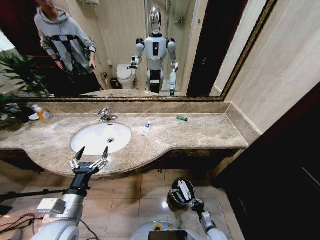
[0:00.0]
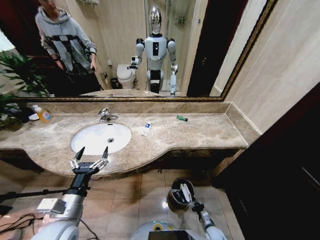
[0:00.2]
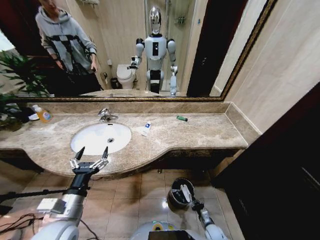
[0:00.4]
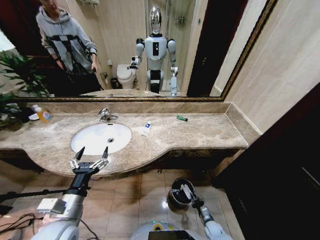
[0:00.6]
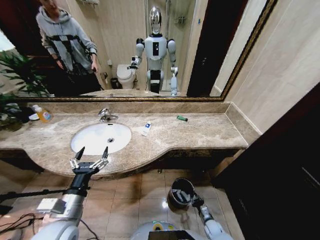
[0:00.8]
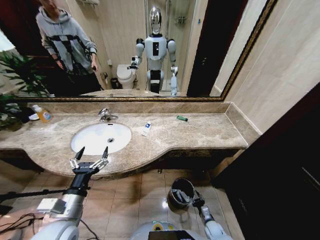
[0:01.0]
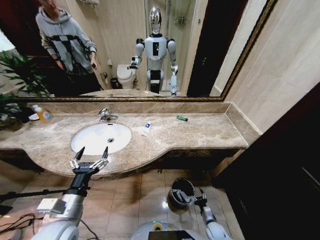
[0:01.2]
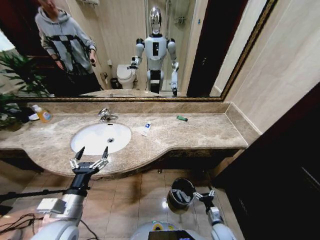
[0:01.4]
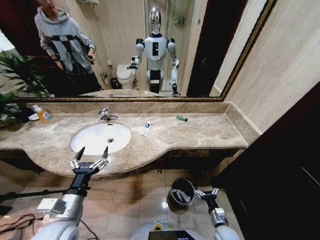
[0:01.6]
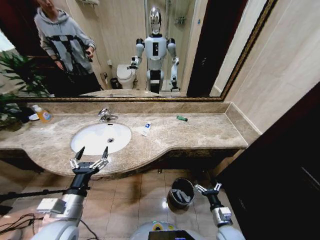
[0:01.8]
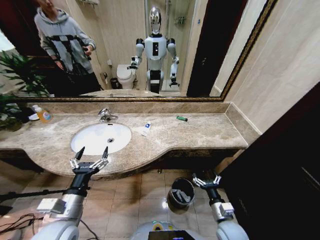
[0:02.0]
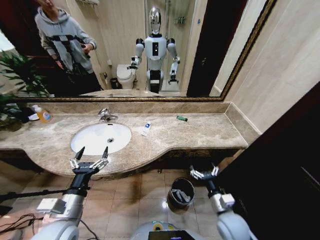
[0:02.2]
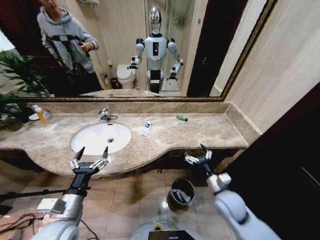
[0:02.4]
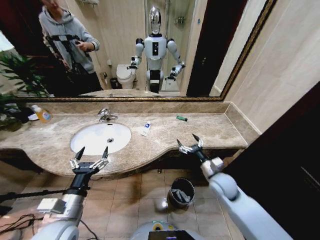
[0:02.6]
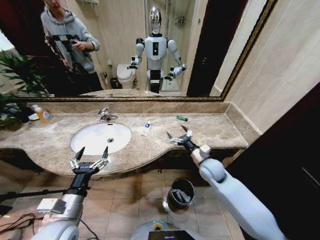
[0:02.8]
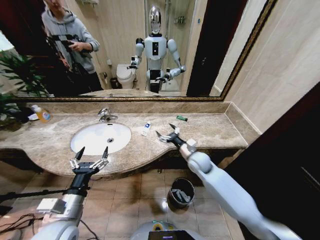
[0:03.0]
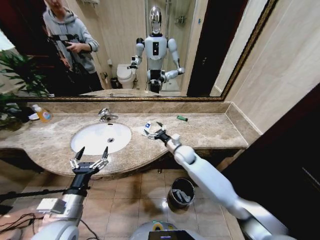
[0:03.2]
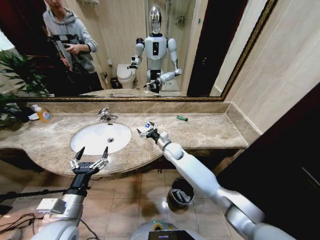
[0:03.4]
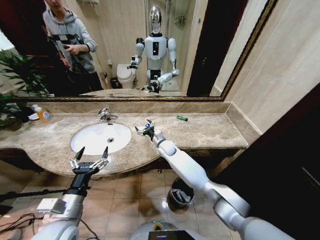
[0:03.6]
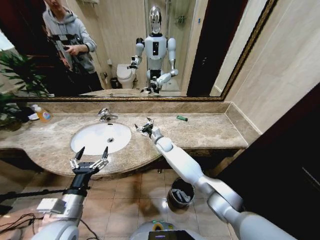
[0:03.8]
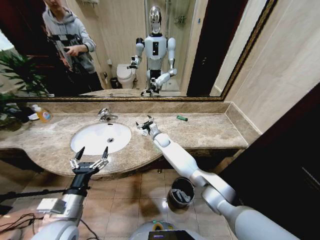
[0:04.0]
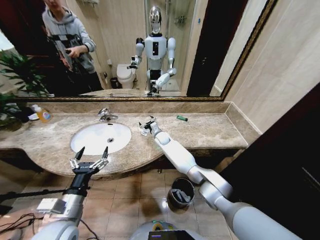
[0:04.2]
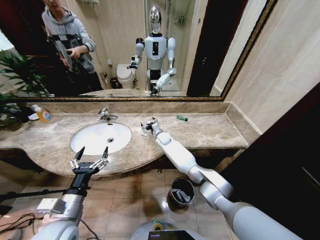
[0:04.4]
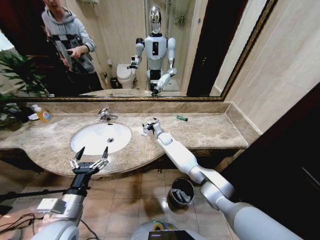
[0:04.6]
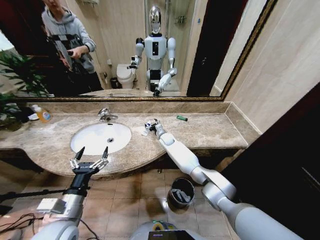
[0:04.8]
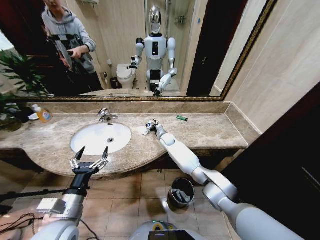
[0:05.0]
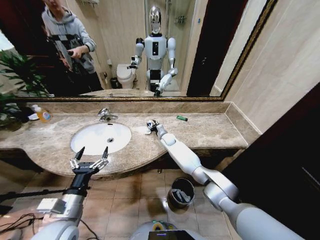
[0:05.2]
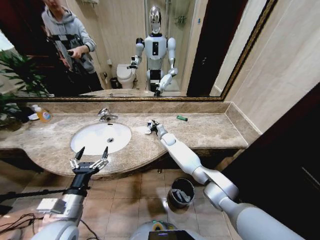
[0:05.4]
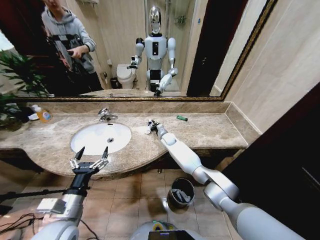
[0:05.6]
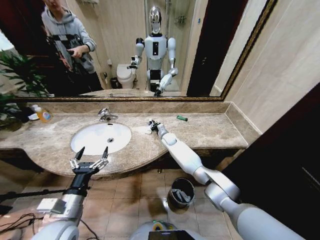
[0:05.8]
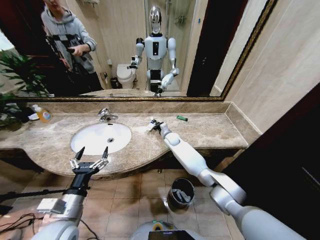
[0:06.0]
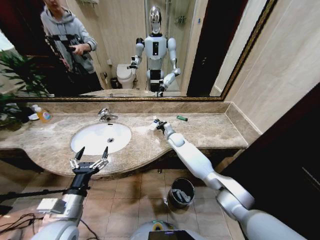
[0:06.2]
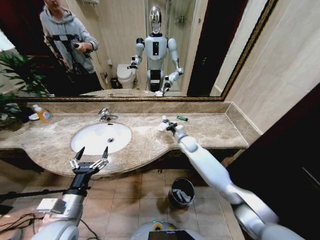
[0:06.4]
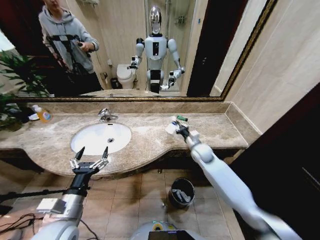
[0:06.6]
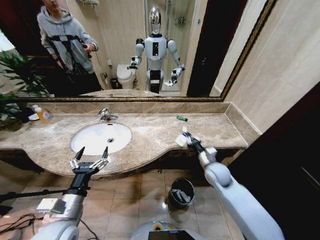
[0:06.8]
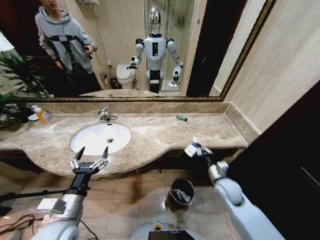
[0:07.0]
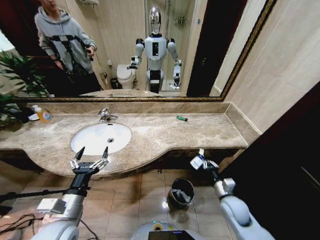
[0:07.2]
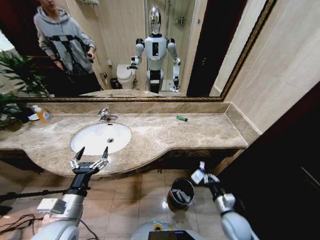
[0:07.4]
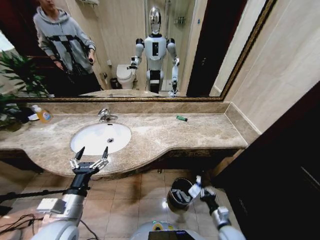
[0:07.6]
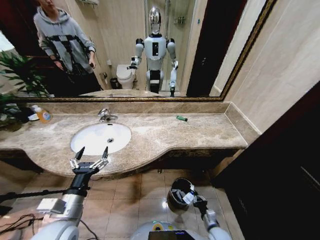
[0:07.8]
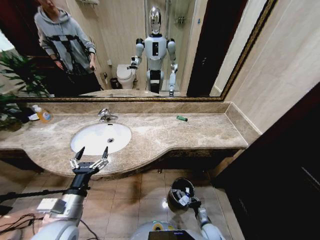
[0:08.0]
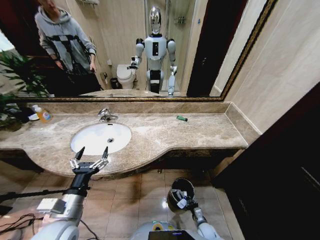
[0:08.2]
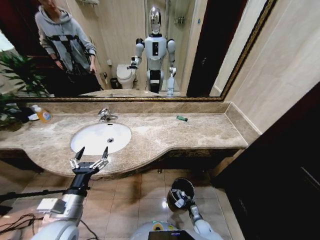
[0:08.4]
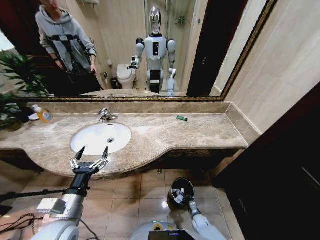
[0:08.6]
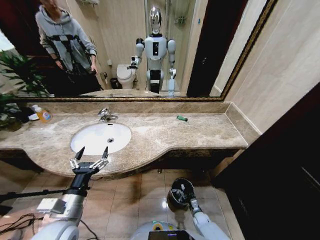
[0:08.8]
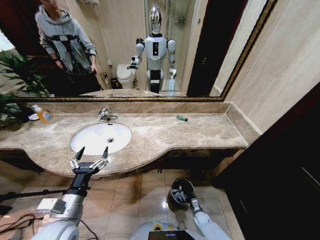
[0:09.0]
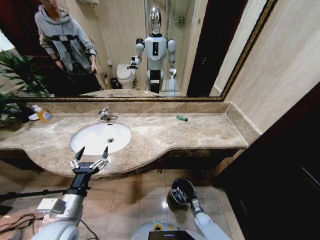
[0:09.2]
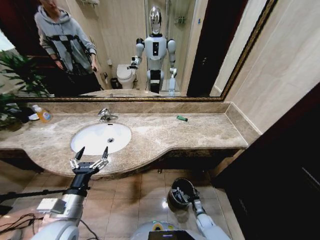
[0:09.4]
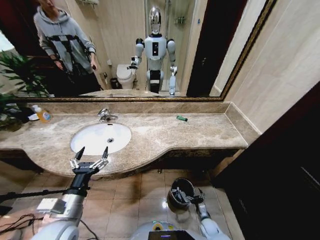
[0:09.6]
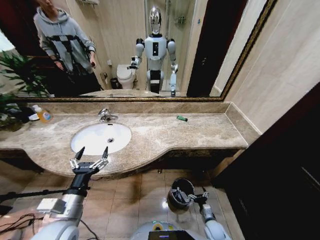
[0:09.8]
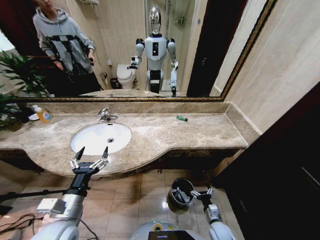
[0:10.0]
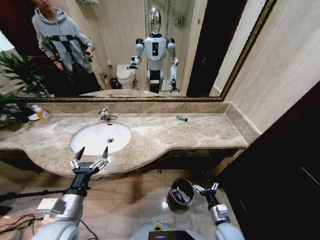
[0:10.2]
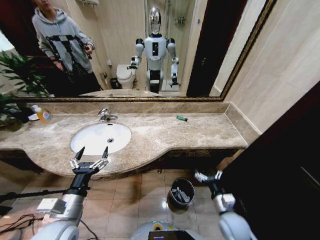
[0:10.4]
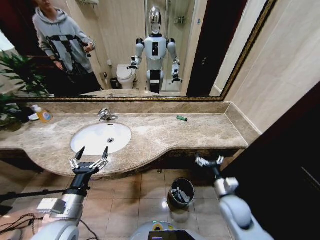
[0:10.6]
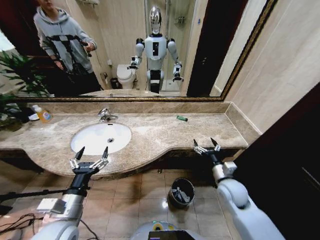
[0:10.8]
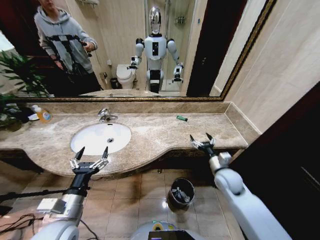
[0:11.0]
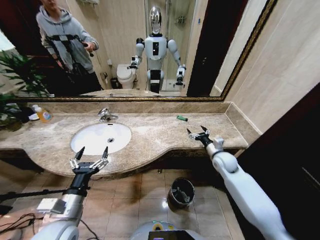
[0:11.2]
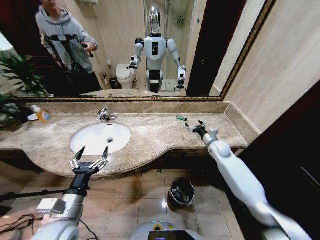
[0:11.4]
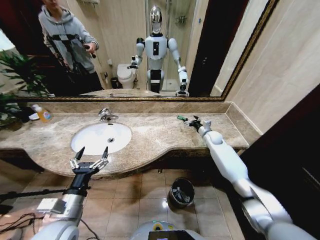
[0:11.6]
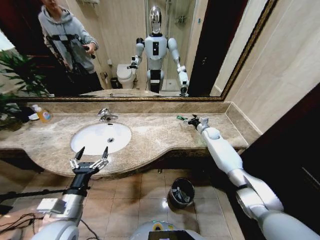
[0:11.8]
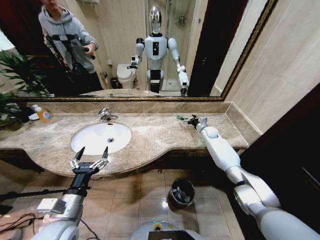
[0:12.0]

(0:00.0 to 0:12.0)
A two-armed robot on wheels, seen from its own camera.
Task of the whole recording: Pick up the trash from the sink and place it in the trash bin.
0:00.0 - 0:01.6: The right gripper heads upward, covering some 10 cm, and opens up.
0:01.6 - 0:03.0: The right gripper heads forward, upward and to the left, covering roughly 35 cm.
0:03.0 - 0:04.4: The right gripper travels forward and to the left by about 25 cm.
0:04.4 - 0:06.0: The right gripper moves to the right, about 5 cm, and closes.
0:06.0 - 0:07.6: The right gripper goes roughly 50 cm backward and to the right.
0:07.6 - 0:09.0: The right gripper moves downward and forward, roughly 20 cm, and opens up.
0:09.0 - 0:10.4: The right gripper travels upward by approximately 30 cm, and opens.
0:10.4 - 0:12.0: The right gripper moves forward, approximately 40 cm.

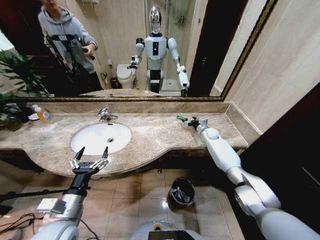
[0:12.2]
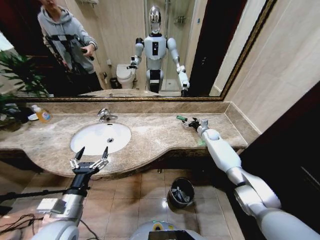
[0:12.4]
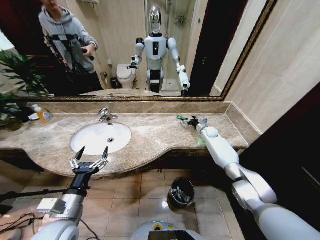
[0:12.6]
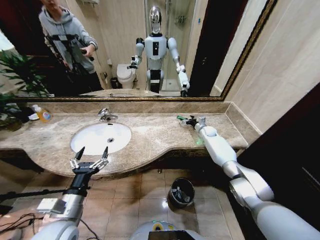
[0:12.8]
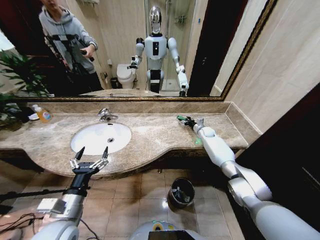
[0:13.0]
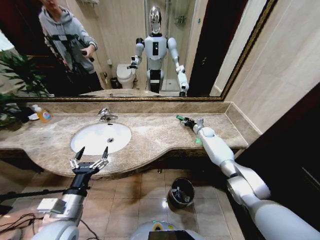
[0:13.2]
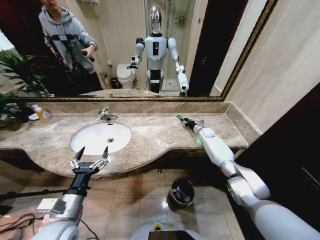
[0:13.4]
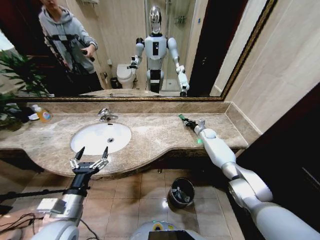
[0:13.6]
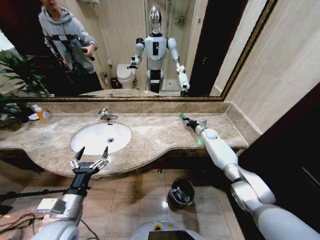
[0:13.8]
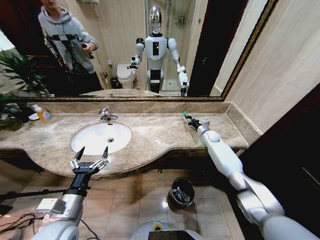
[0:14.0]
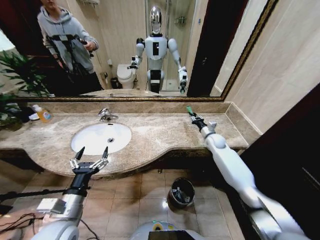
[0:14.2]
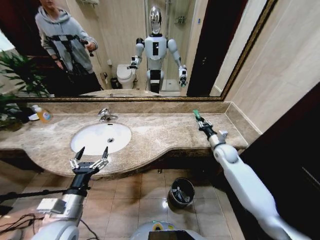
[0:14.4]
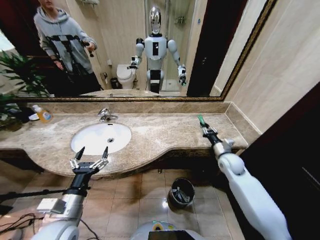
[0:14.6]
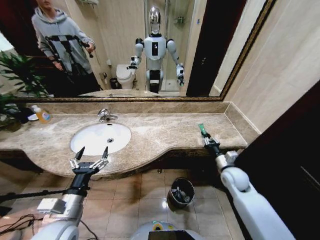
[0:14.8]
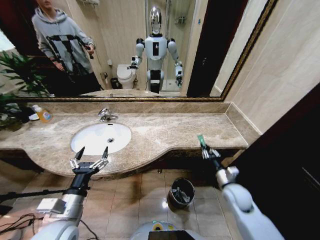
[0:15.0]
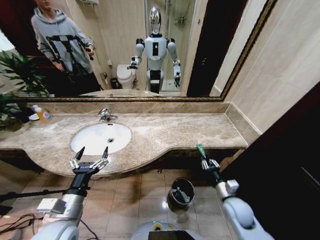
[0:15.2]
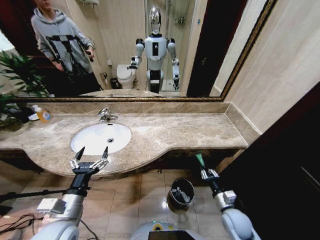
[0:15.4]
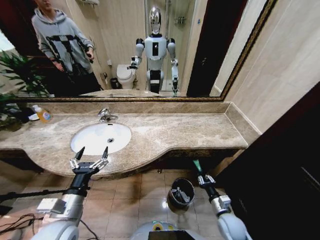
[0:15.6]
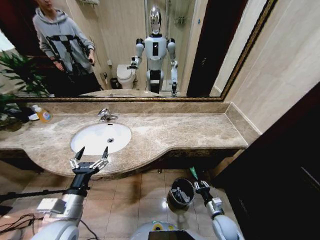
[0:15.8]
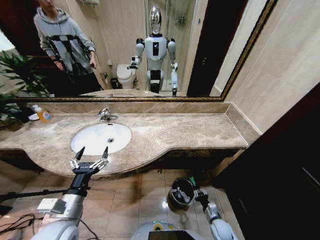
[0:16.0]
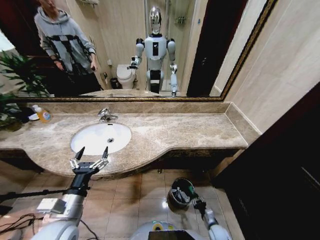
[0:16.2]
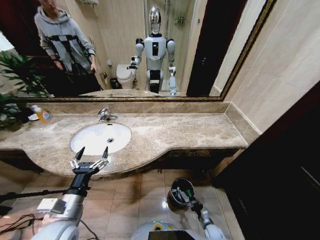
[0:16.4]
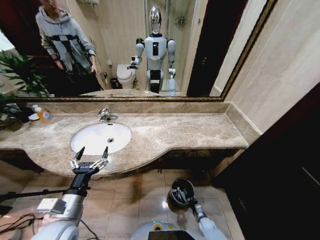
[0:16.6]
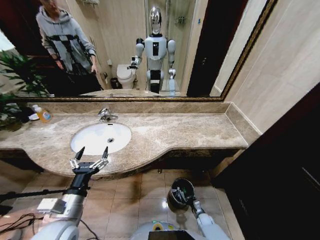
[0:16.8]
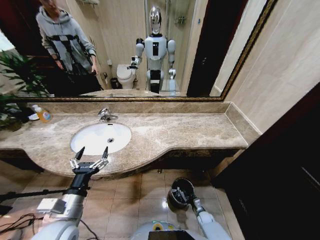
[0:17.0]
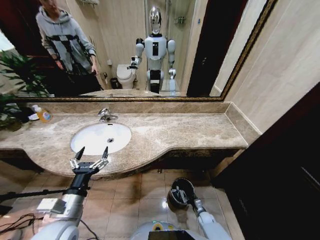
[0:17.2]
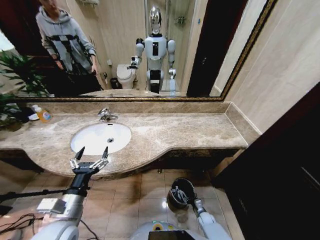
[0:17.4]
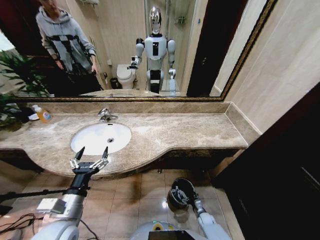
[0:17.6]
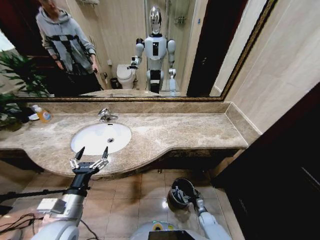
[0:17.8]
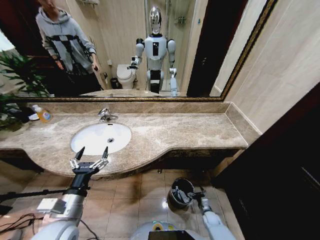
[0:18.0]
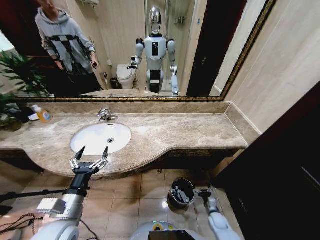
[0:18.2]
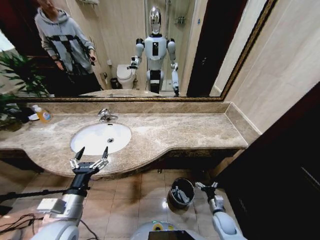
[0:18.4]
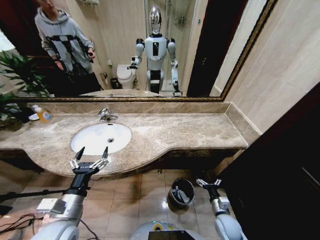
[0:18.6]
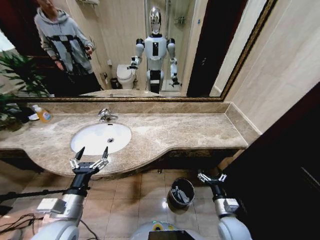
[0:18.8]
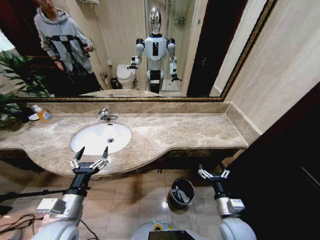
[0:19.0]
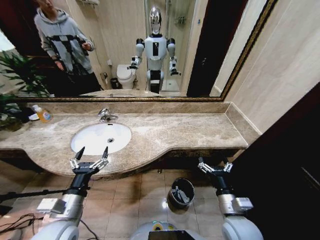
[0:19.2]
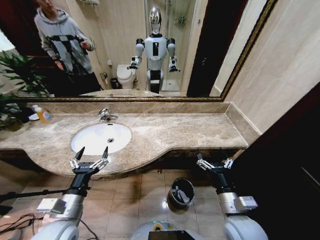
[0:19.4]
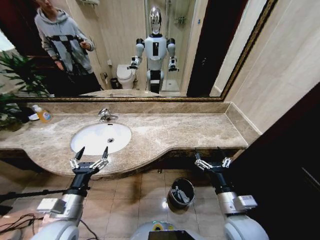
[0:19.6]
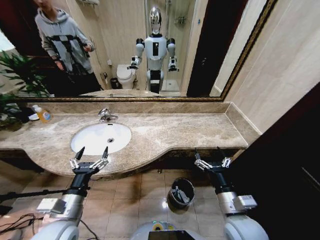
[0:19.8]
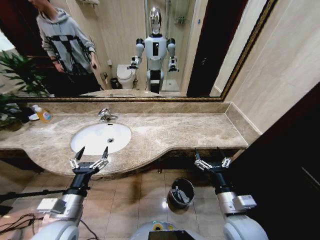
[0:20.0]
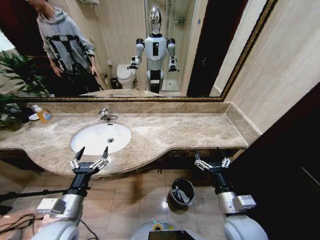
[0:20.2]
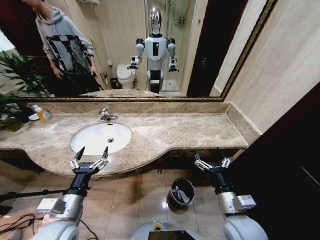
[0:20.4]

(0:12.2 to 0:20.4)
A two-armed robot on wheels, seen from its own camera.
Task of the whole recording: Pick up the trash from the sink and place it in the trash bin.
0:12.2 - 0:13.8: The right gripper closes up.
0:13.8 - 0:15.4: The right gripper shifts roughly 40 cm backward.
0:15.4 - 0:17.2: The right gripper heads downward, covering some 30 cm.
0:17.2 - 0:18.8: The right gripper travels upward by approximately 30 cm, and opens its fingers.
0:18.8 - 0:20.4: The right gripper goes roughly 15 cm upward.
